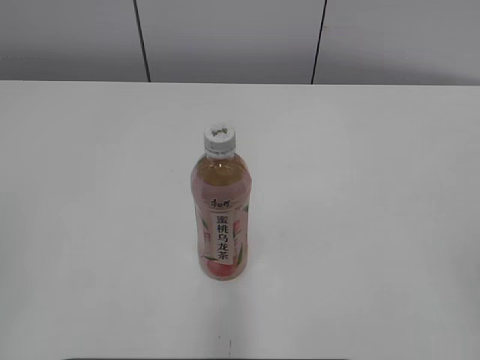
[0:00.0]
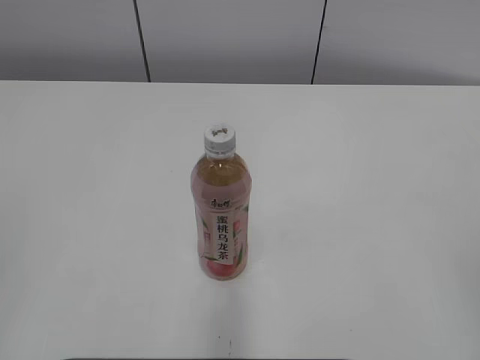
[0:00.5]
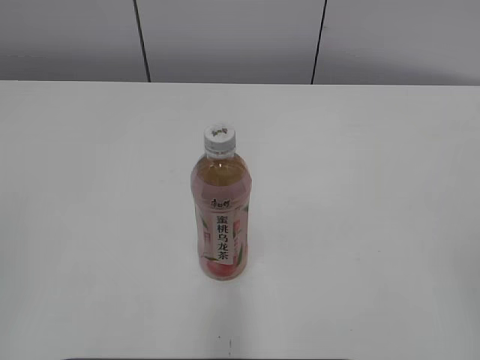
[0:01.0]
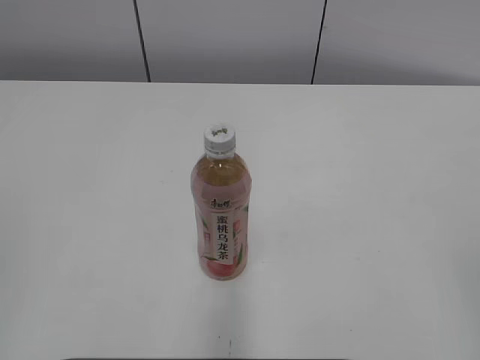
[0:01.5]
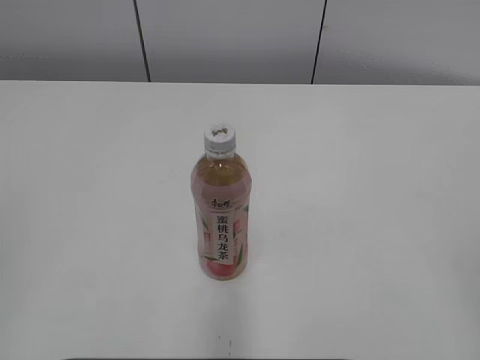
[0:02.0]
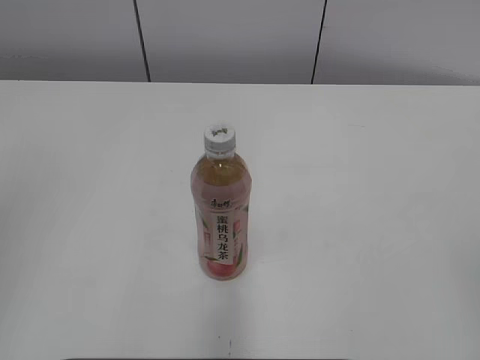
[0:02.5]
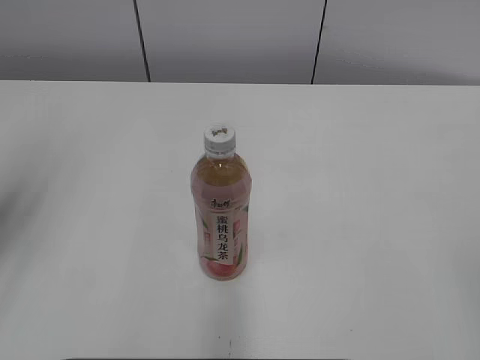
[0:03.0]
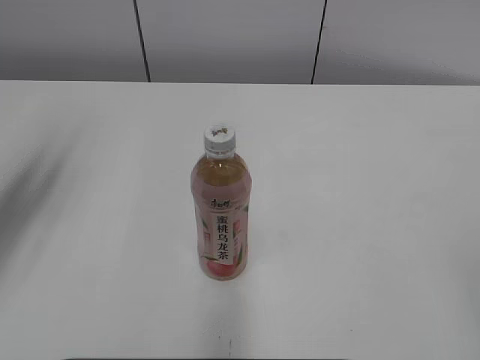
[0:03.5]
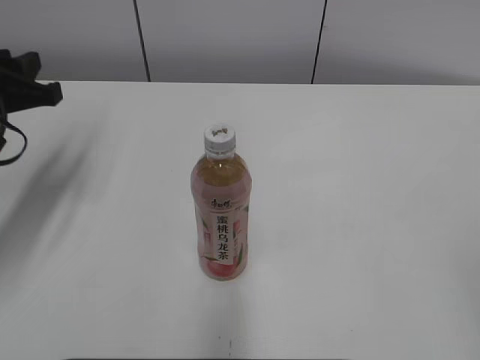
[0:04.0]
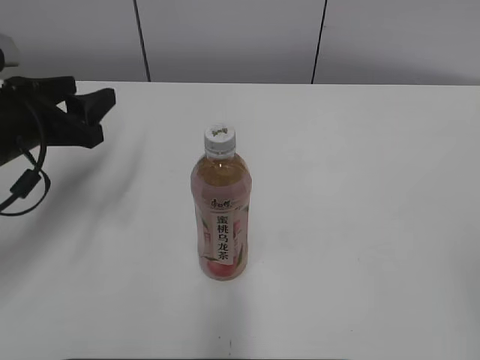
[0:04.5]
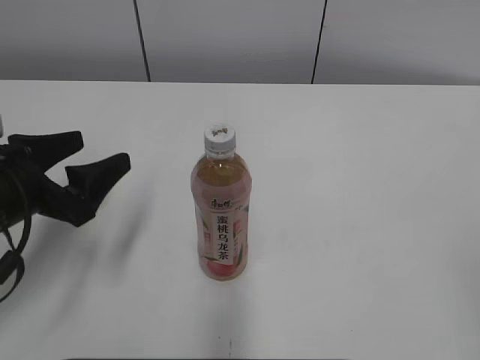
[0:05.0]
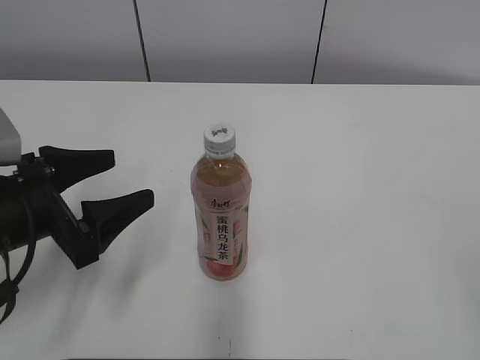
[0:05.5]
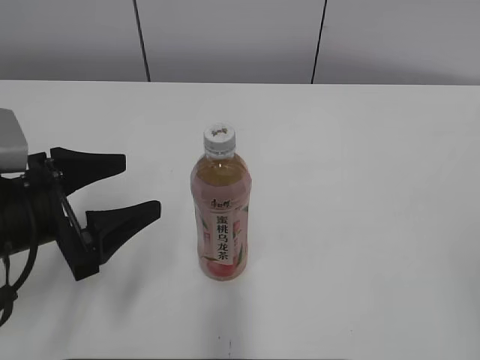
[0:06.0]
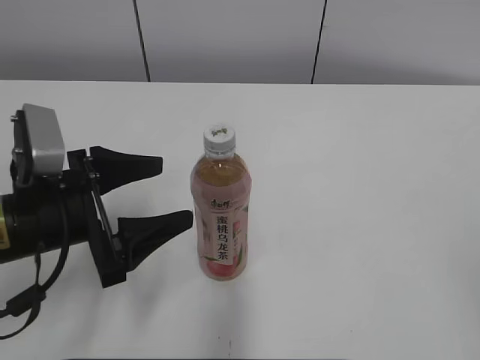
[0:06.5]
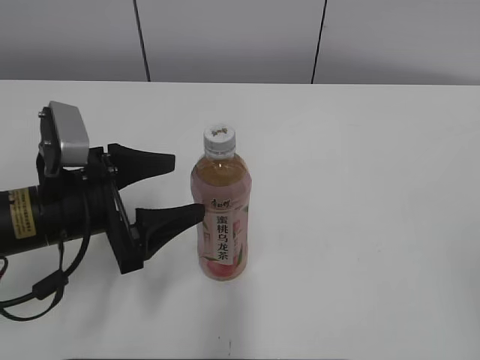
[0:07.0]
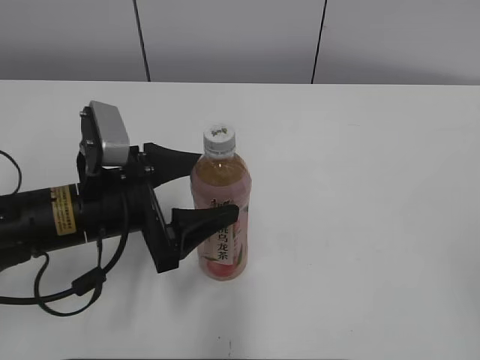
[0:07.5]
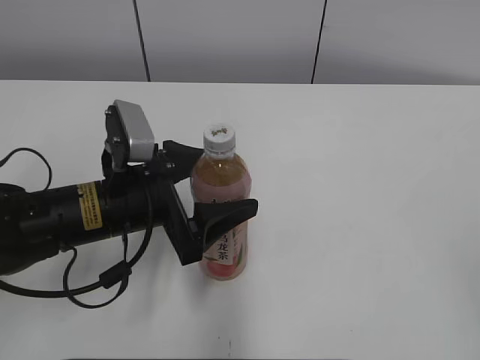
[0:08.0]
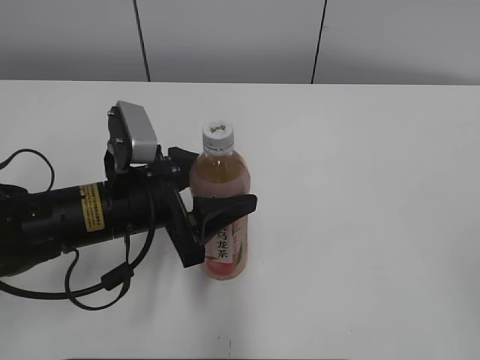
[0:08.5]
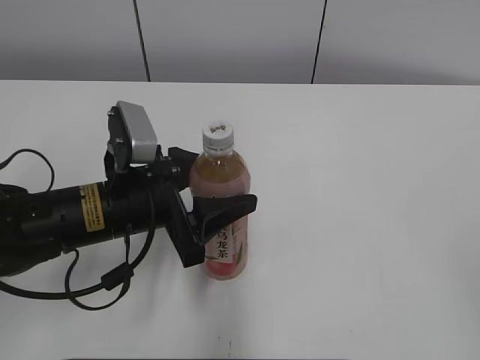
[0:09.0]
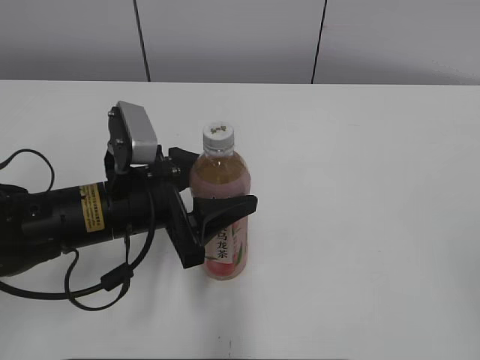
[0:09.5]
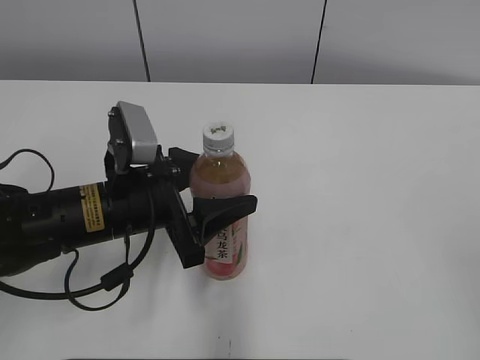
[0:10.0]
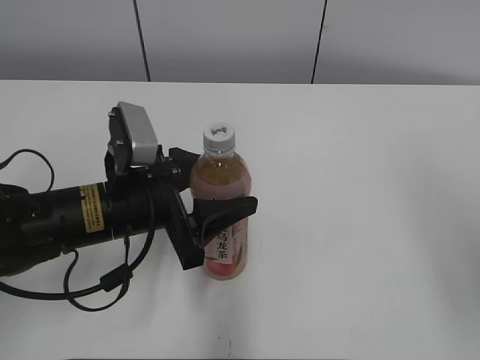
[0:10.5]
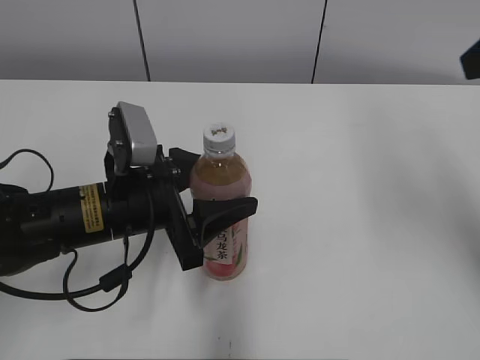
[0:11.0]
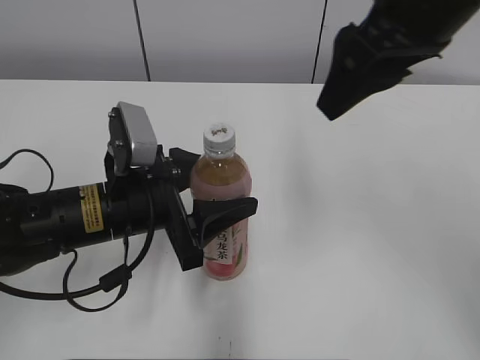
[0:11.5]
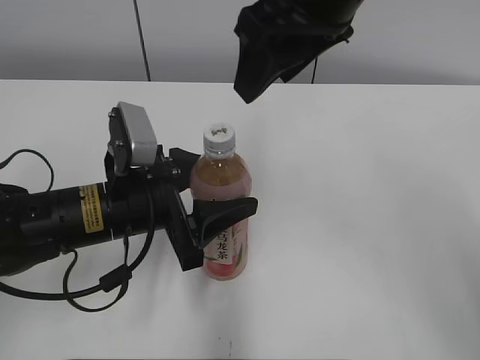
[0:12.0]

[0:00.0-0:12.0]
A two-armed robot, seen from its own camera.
Step, 0:00.0 to 0:08.5: Grab the Peach Oolong Tea with the left hand.
0:02.0 to 0:04.0: The left gripper moves forward, about 30 cm.
0:04.0 to 0:06.0: The left gripper is displaced backward, downward and to the right by roughly 15 cm, and opens.
0:06.0 to 0:08.0: The left gripper travels to the right by about 10 cm.
0:08.0 to 0:10.0: The left gripper closes up.
0:10.0 to 0:12.0: The right gripper goes some 40 cm forward and to the left.

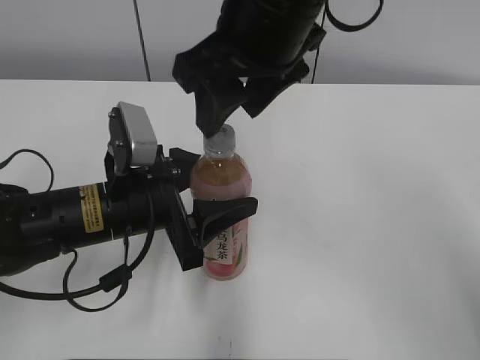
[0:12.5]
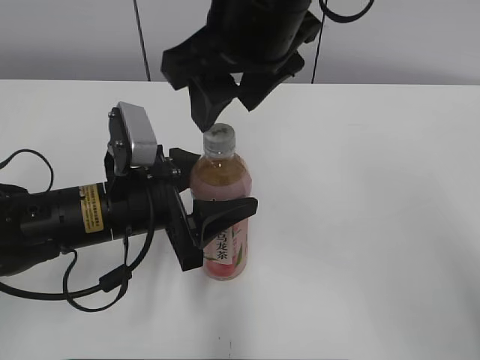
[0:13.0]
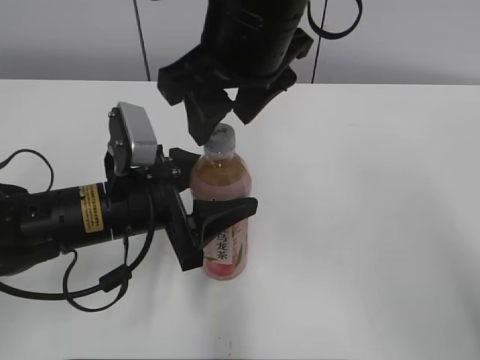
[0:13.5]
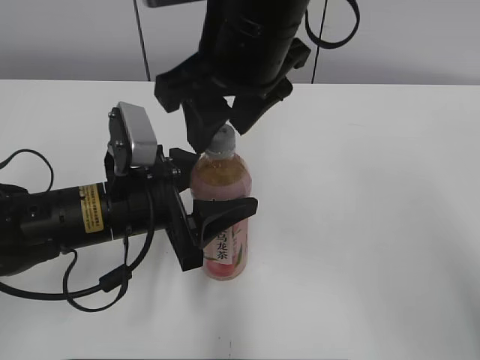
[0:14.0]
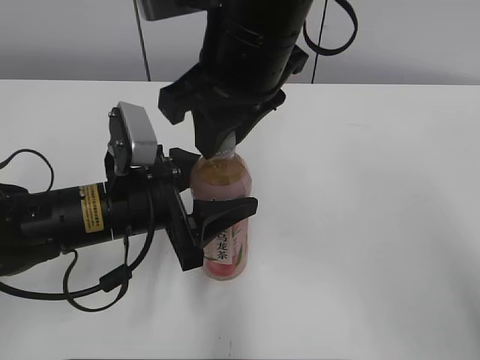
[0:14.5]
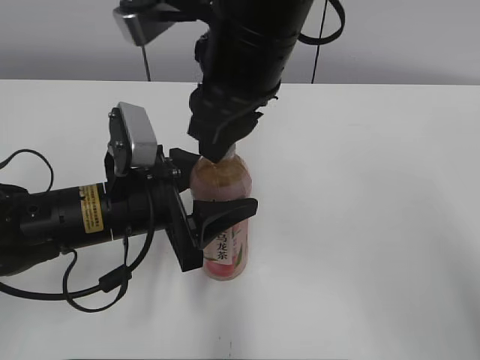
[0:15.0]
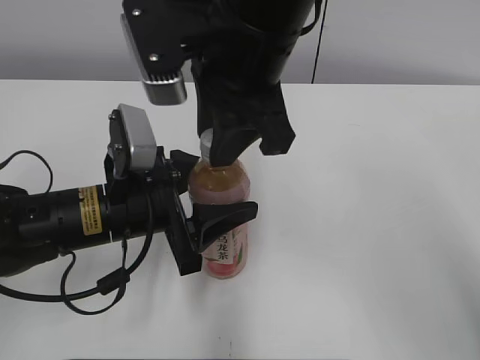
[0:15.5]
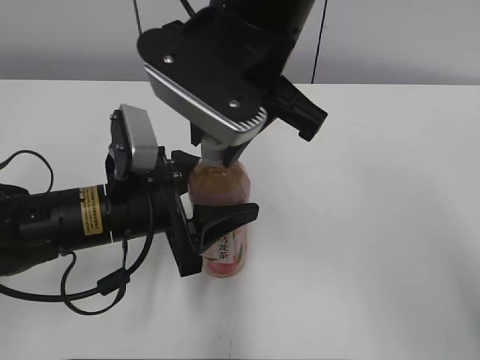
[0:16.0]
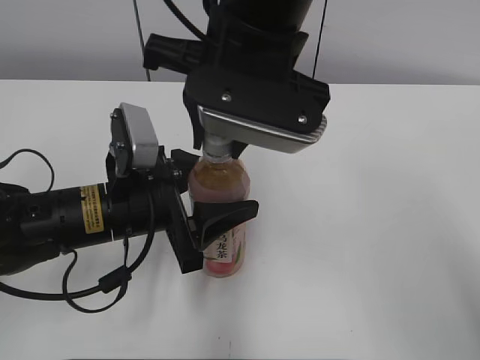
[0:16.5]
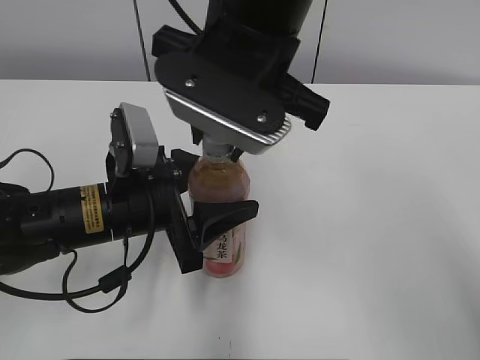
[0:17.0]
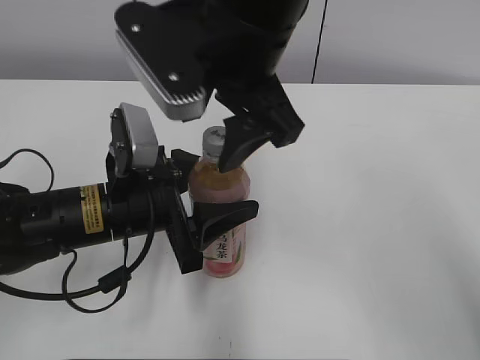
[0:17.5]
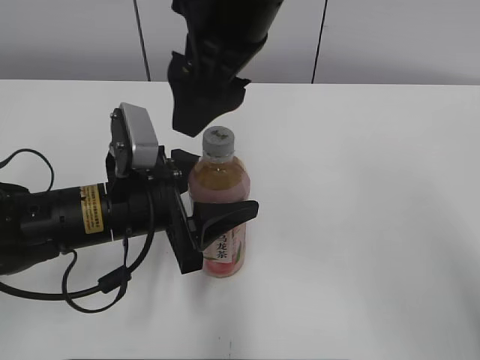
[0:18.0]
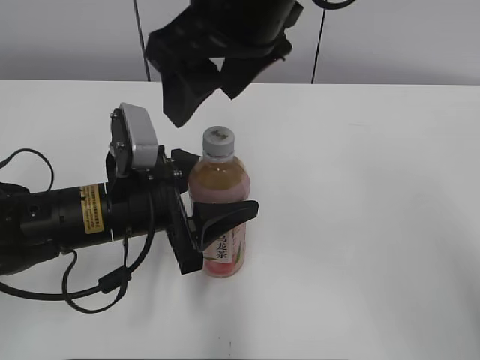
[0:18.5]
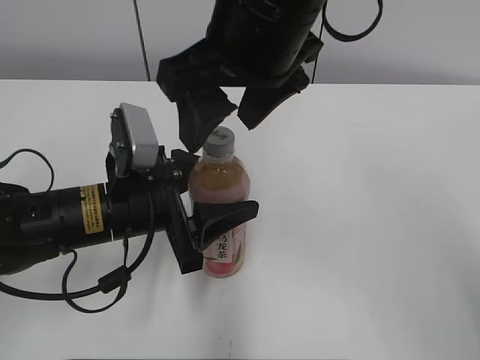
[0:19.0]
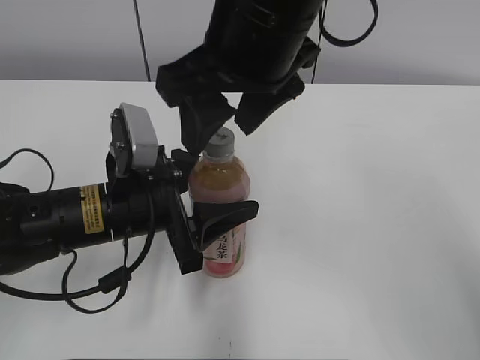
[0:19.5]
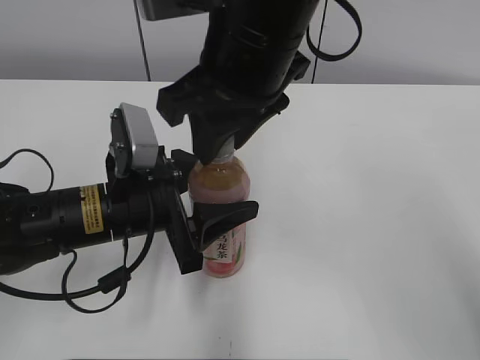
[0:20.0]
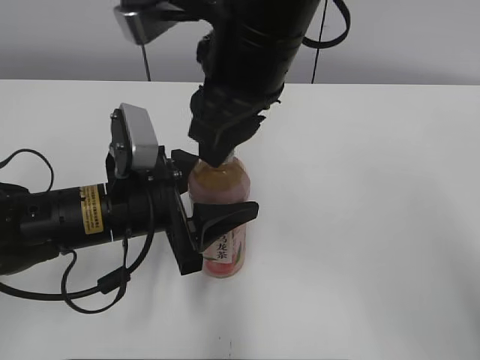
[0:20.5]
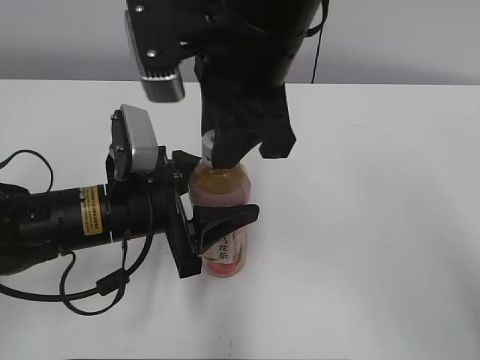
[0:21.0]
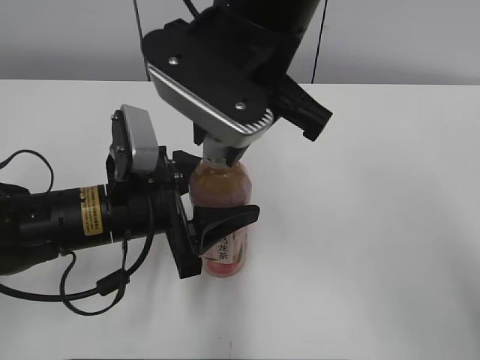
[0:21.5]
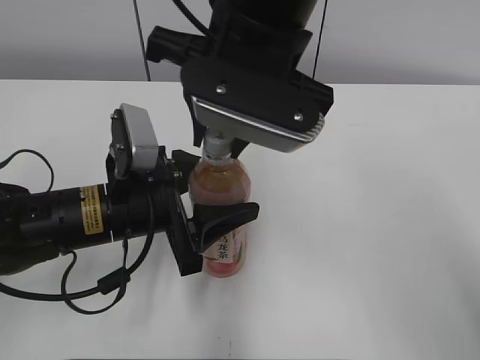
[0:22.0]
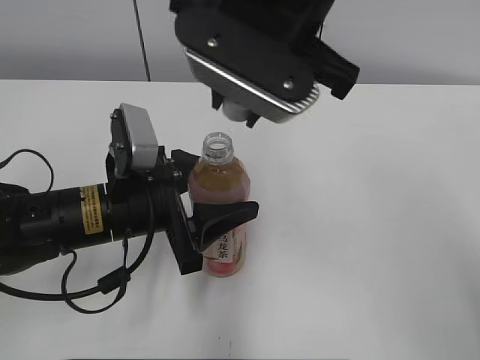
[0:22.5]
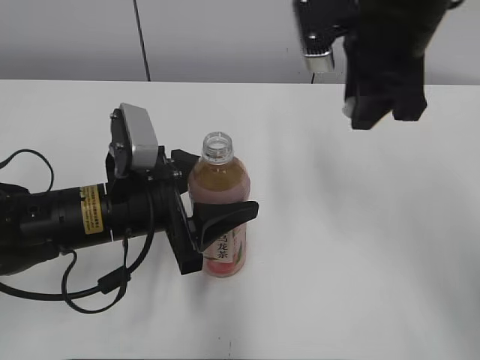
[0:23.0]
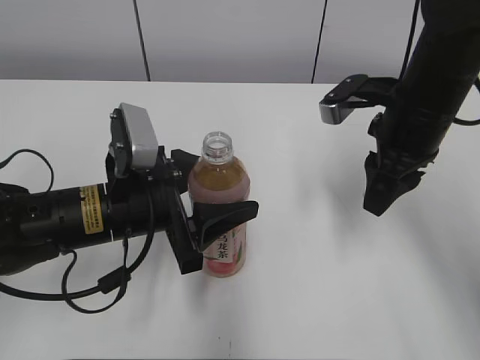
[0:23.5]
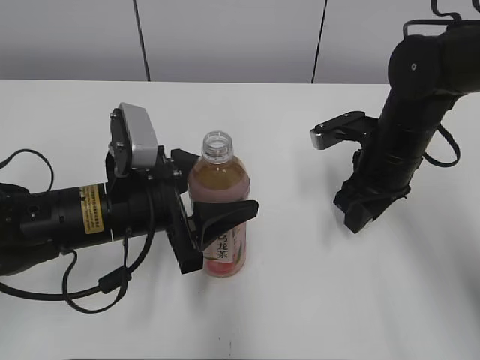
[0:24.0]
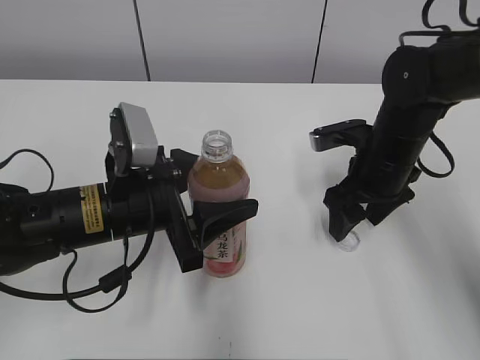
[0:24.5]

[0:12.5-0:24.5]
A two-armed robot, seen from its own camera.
Step, 0:22.5 to 0:24.0: Place the bottle cap on the right.
0:12.5 to 0:14.5: The right gripper closes its fingers.
0:16.5 to 0:18.5: The right gripper opens up.
0:18.5 to 0:20.5: The right gripper closes its fingers.
0:22.5 to 0:24.5: The right gripper moves downward and to the right, some 25 cm, and opens up.

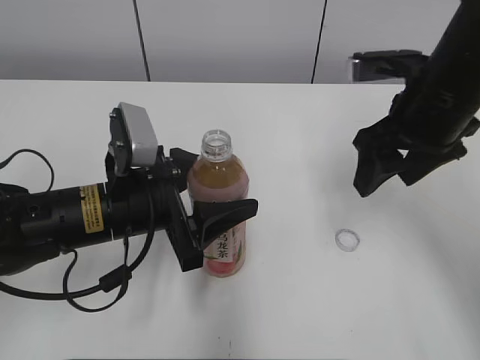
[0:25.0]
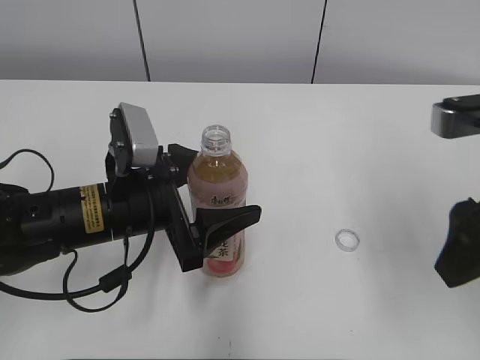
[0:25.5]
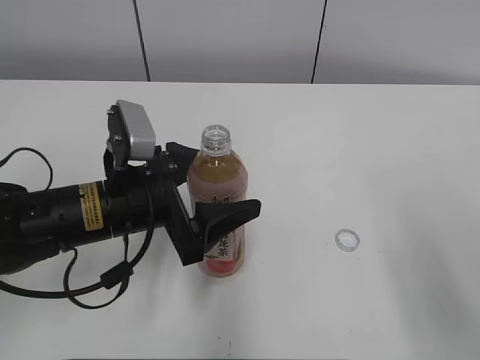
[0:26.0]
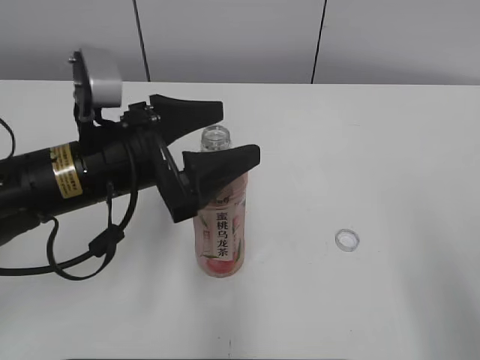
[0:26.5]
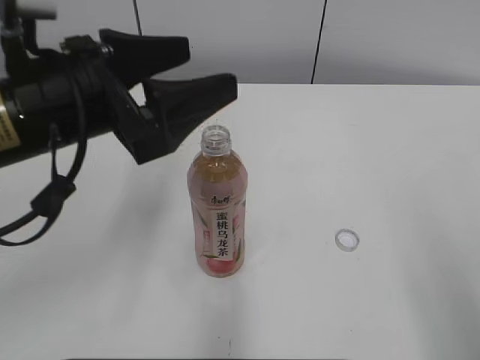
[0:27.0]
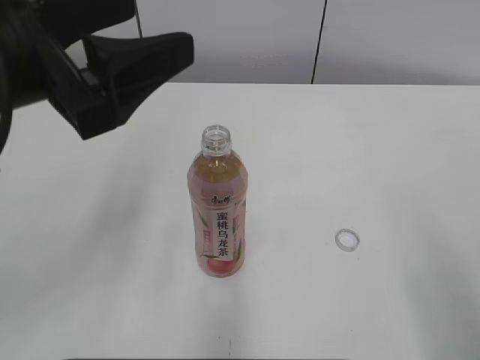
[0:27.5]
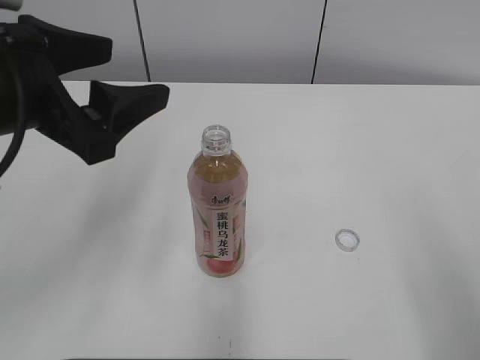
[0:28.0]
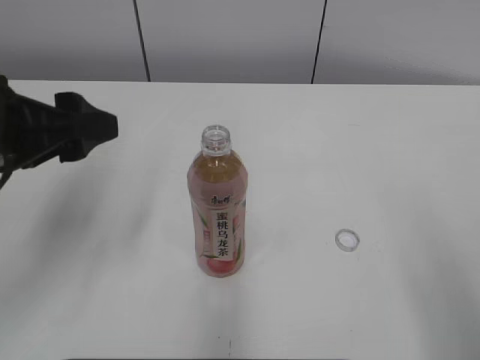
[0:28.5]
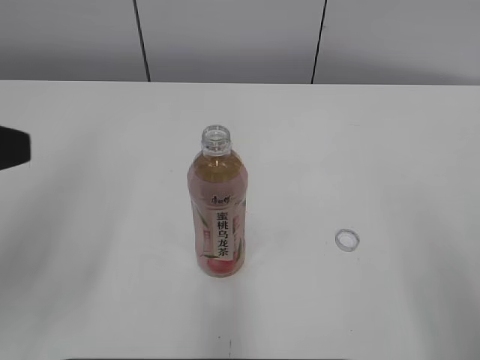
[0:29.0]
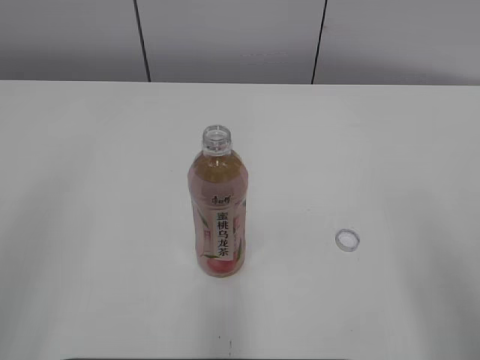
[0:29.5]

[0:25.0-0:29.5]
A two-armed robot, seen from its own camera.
0:25.0 to 0:27.0: The right gripper moves backward, roughly 25 cm; the left gripper shifts roughly 10 cm upward, and opens.
0:27.0 to 0:29.5: The left gripper goes approximately 20 cm backward, to the left and upward.
